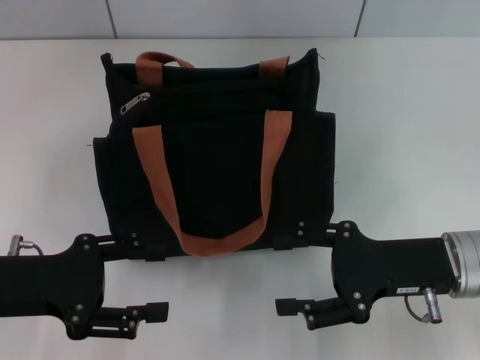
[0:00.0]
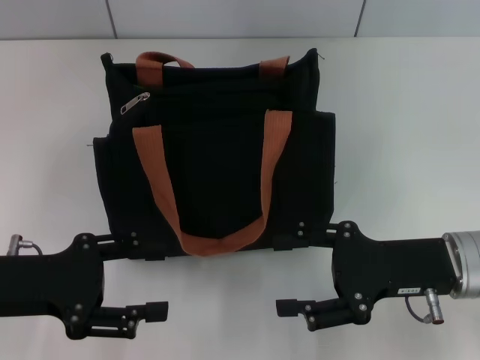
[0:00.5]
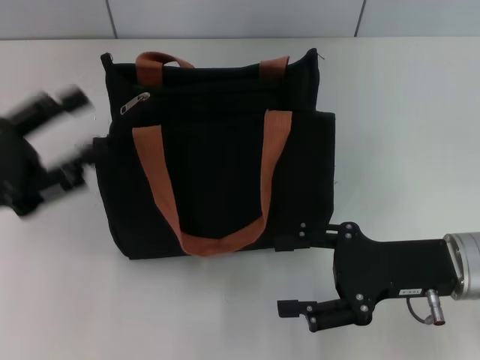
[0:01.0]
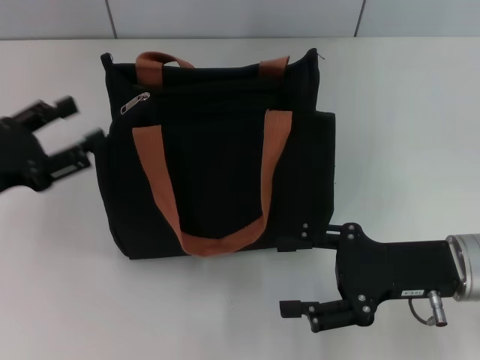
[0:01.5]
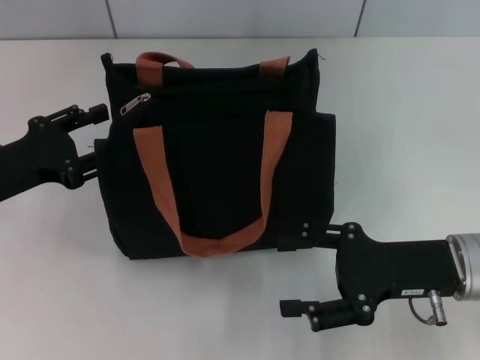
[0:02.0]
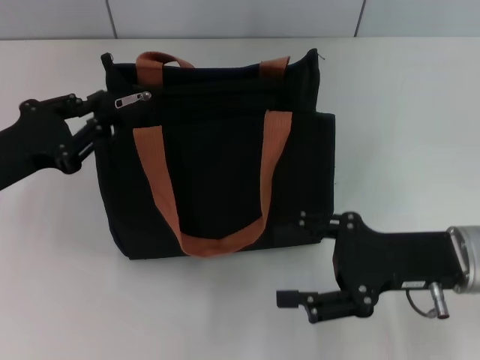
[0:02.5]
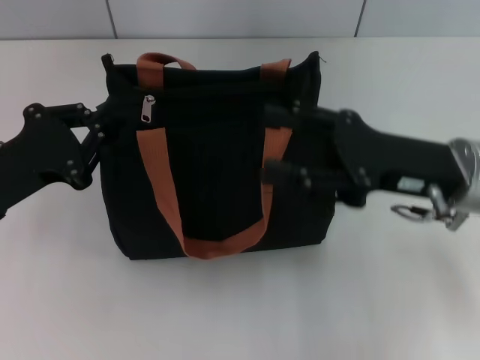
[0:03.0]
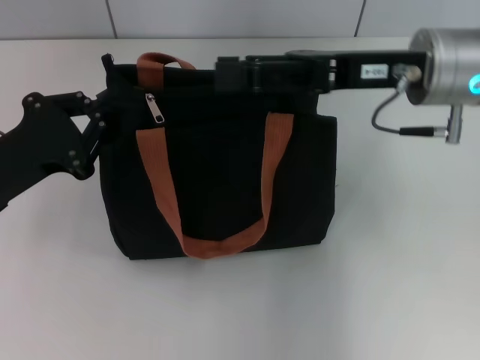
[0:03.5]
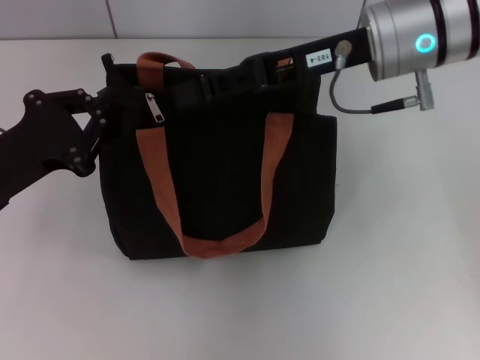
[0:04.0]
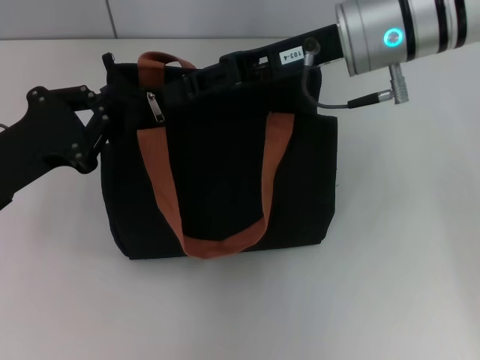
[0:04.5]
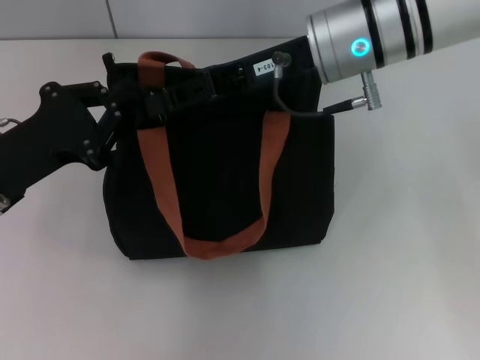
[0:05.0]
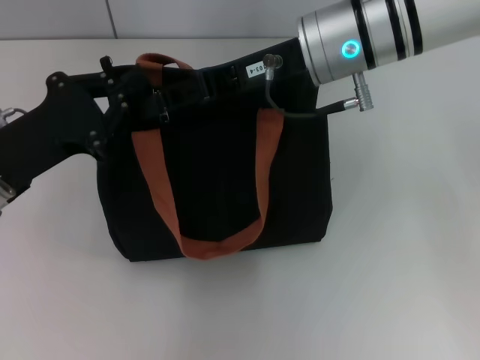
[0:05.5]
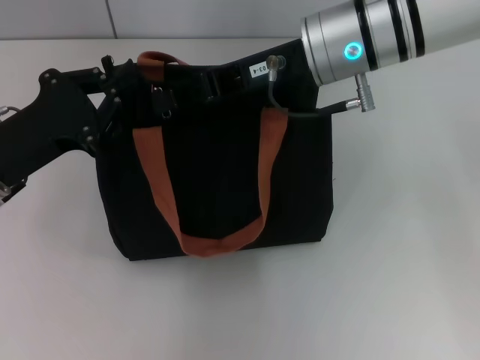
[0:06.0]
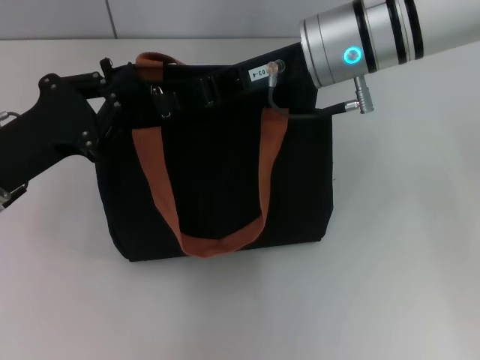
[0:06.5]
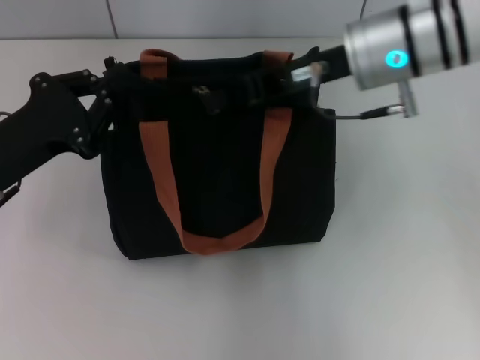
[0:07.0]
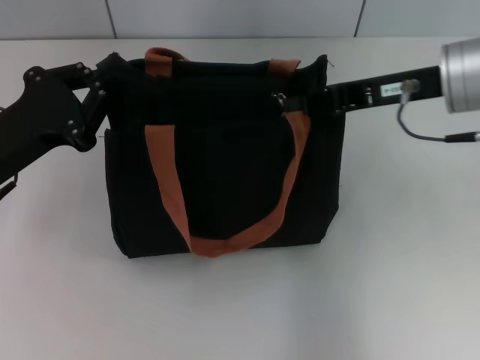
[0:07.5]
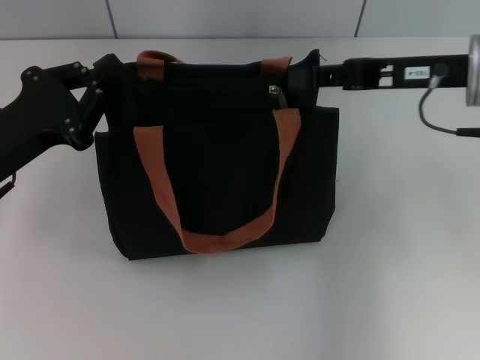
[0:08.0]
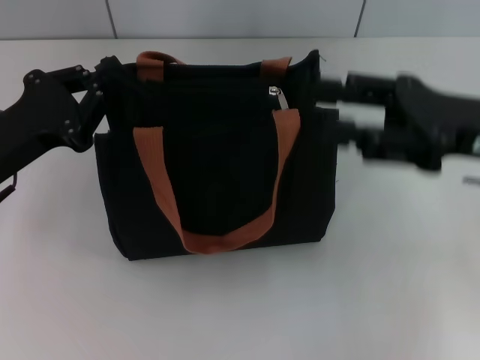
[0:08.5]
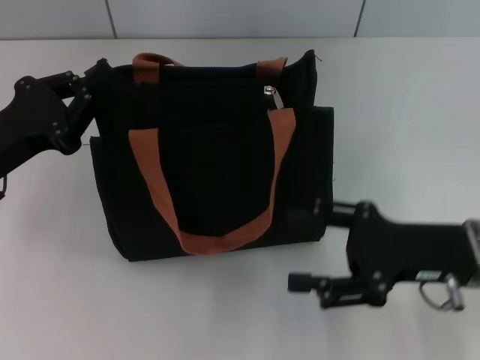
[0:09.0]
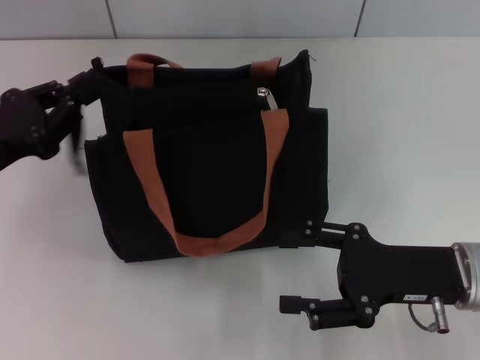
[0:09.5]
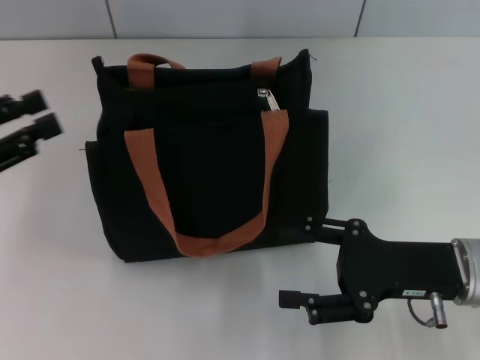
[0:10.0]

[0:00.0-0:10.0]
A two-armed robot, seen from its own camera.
Step, 0:00.0 to 0:08.0: Pull up the zipper with your right hand.
Step, 0:08.5 to 0:09.5: Grab the zipper with your left hand.
0:00.0 to 0:02.0: The left gripper goes some 5 cm forward.
0:02.0 to 0:04.0: The right gripper moves upward, forward and to the left, some 20 cm, while the left gripper closes up.
0:04.0 to 0:06.0: The right gripper closes its fingers.
0:06.0 to 0:08.0: The right gripper heads to the right, covering about 15 cm.
0:08.0 to 0:10.0: The left gripper travels to the left by roughly 10 cm, and opens its fingers. The right gripper moves downward and backward, some 15 cm, and opens its fingers.

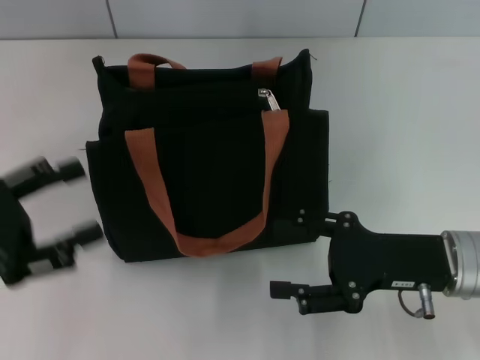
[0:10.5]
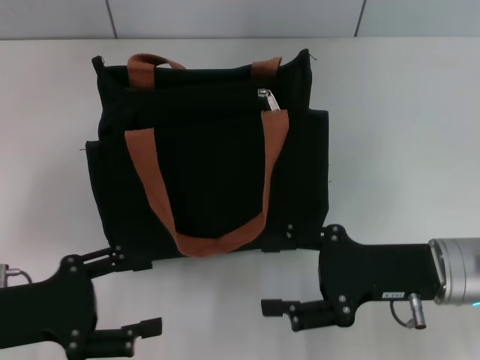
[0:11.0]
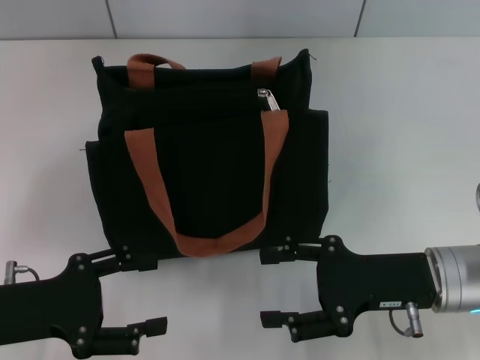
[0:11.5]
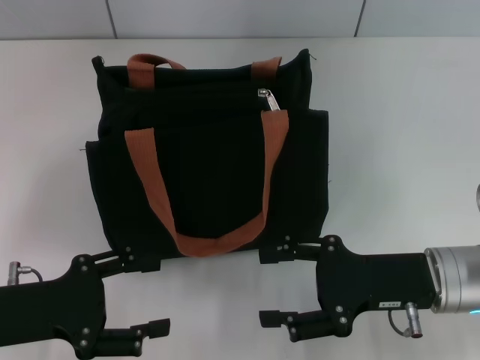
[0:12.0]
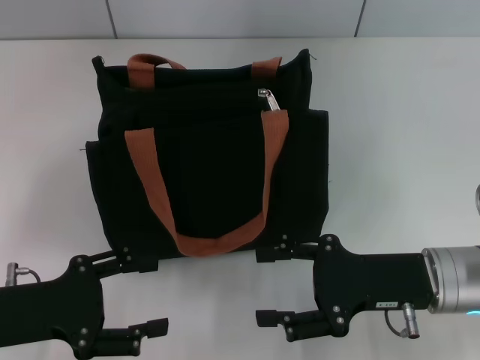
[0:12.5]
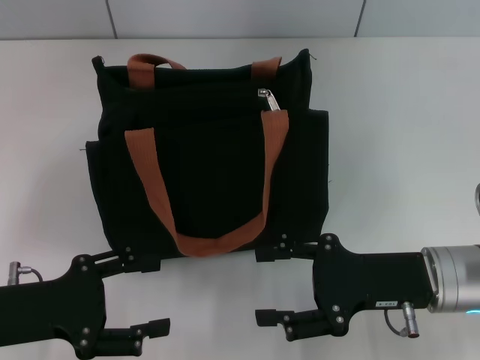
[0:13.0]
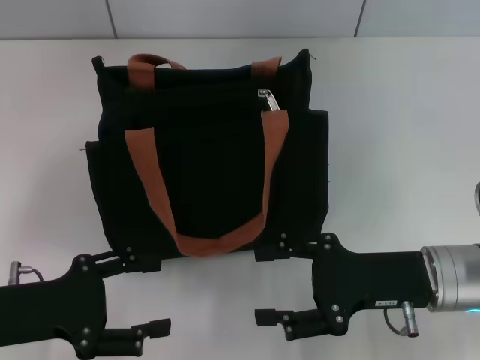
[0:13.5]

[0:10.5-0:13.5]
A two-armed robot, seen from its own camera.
0:10.5 to 0:12.0: The left gripper ends up some 5 cm from where it was.
0:12.0 to 0:13.5: Both grippers stay about where they are.
